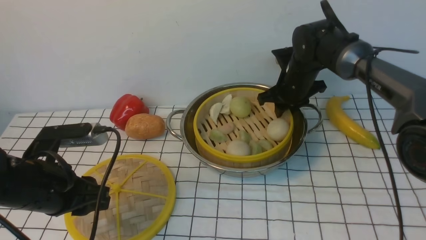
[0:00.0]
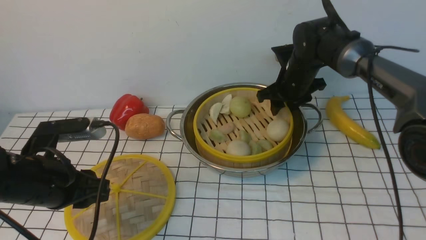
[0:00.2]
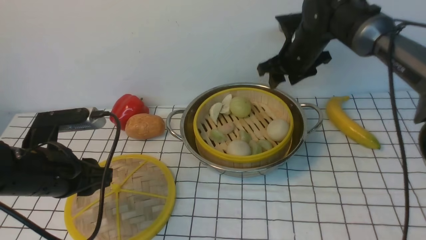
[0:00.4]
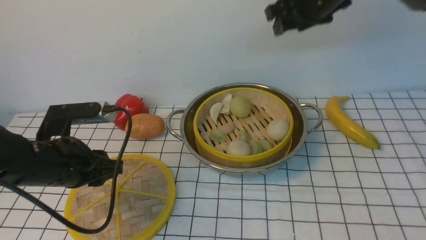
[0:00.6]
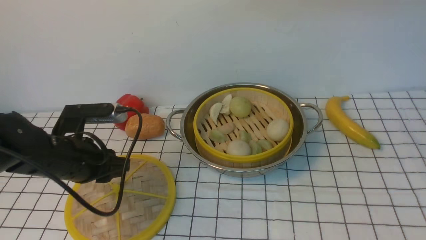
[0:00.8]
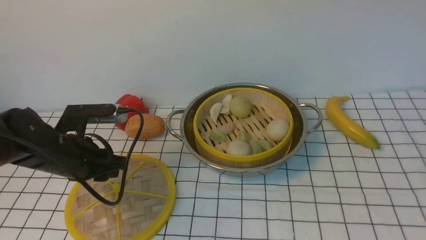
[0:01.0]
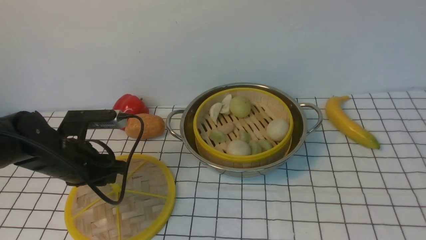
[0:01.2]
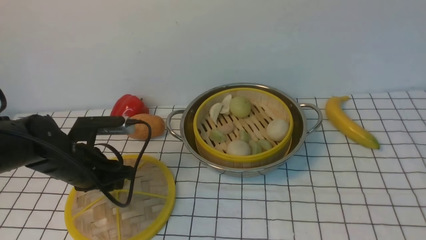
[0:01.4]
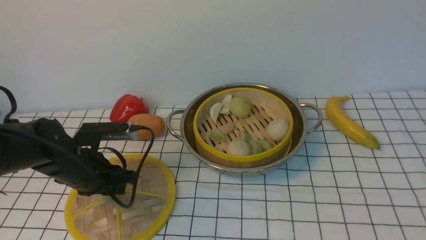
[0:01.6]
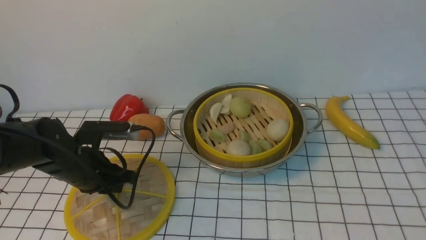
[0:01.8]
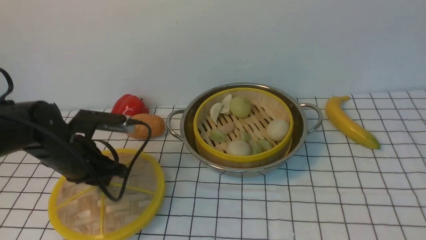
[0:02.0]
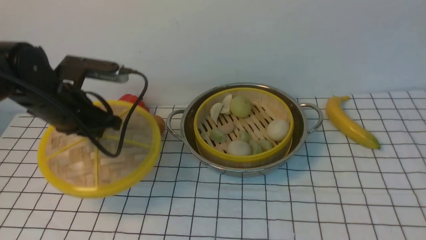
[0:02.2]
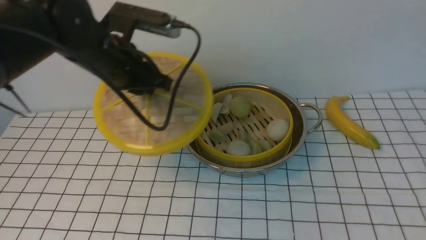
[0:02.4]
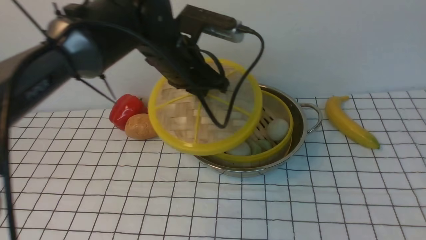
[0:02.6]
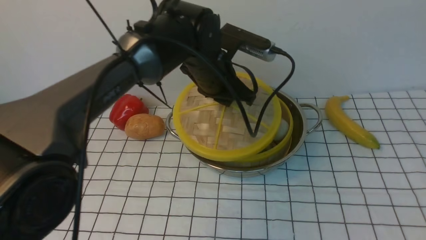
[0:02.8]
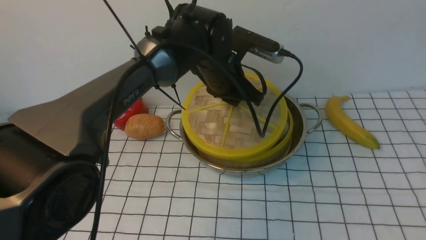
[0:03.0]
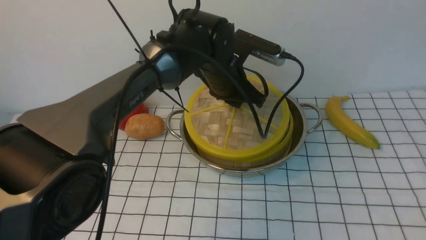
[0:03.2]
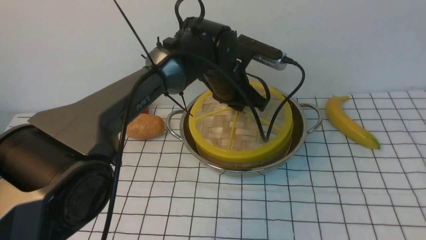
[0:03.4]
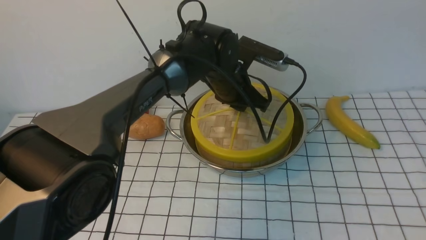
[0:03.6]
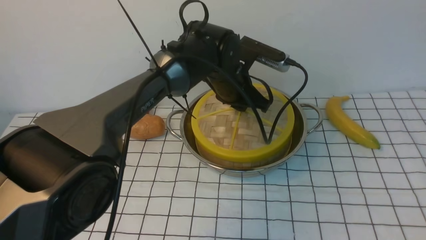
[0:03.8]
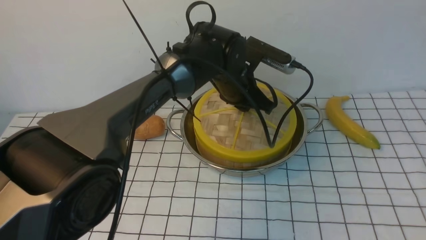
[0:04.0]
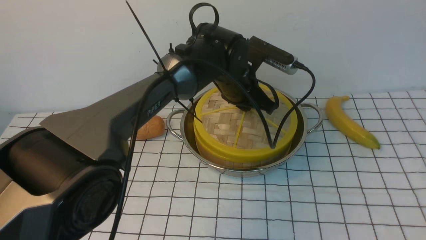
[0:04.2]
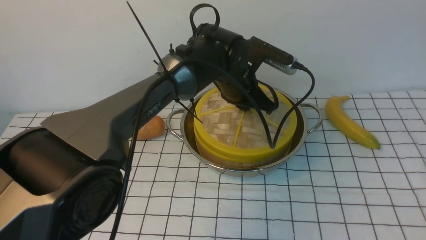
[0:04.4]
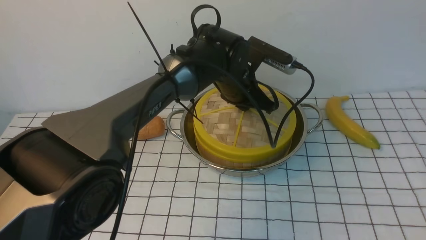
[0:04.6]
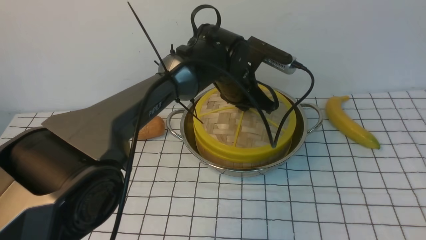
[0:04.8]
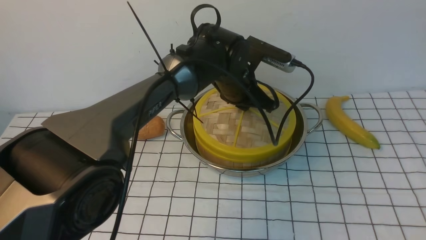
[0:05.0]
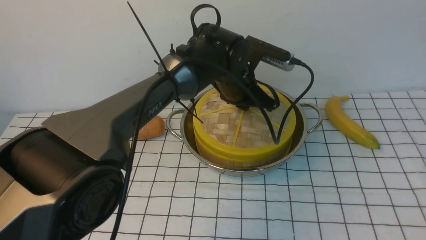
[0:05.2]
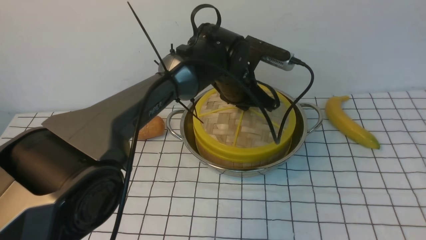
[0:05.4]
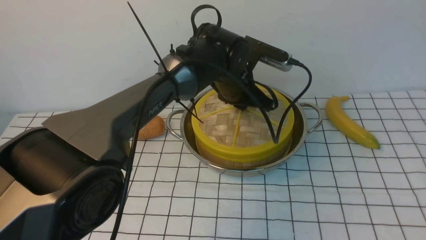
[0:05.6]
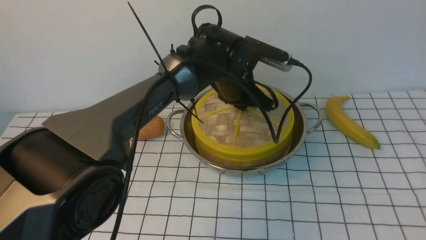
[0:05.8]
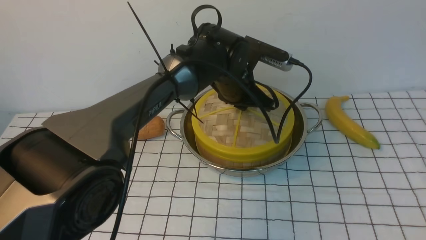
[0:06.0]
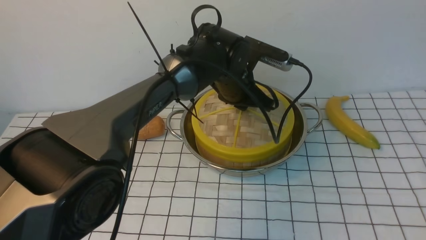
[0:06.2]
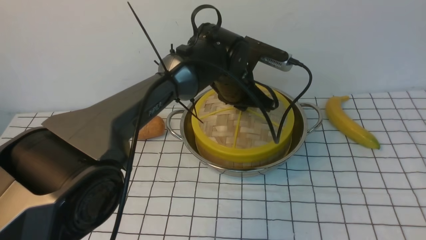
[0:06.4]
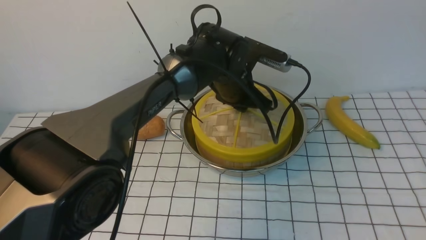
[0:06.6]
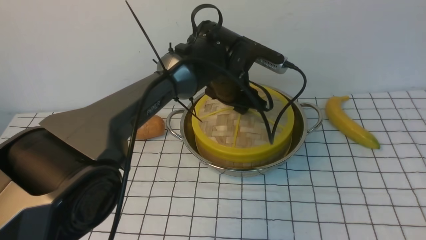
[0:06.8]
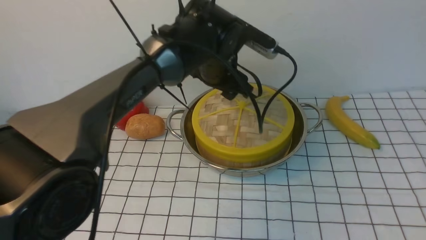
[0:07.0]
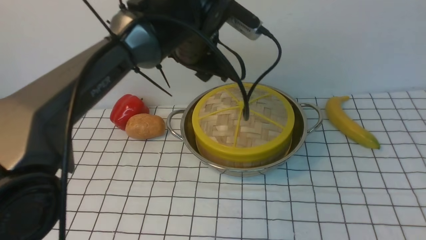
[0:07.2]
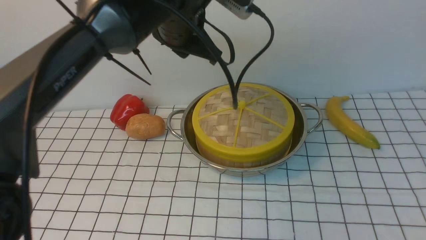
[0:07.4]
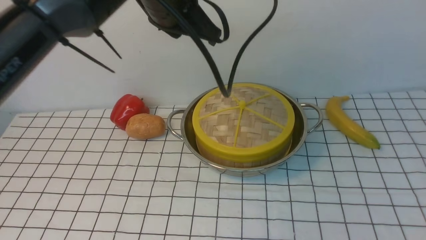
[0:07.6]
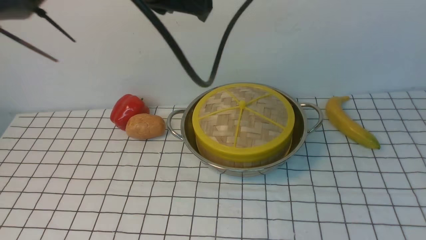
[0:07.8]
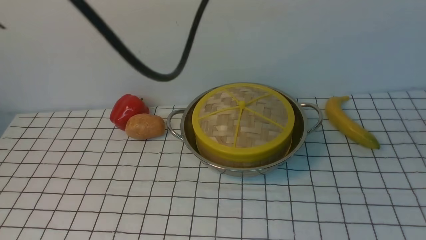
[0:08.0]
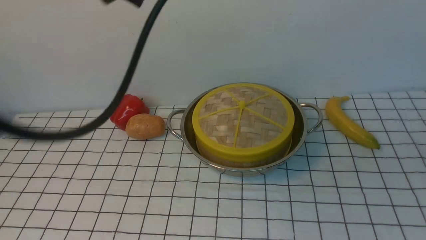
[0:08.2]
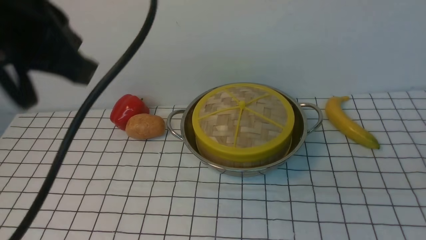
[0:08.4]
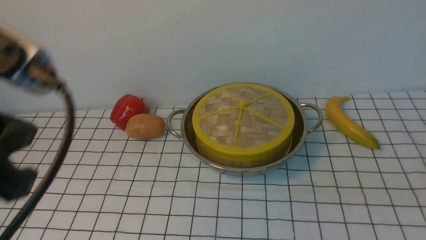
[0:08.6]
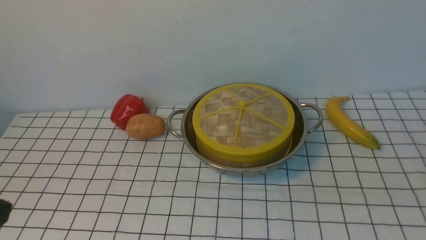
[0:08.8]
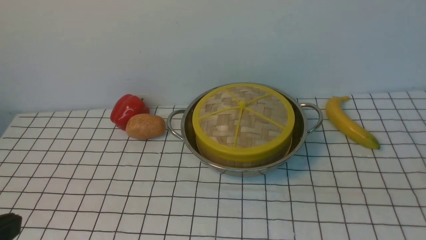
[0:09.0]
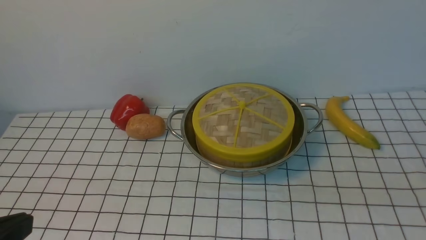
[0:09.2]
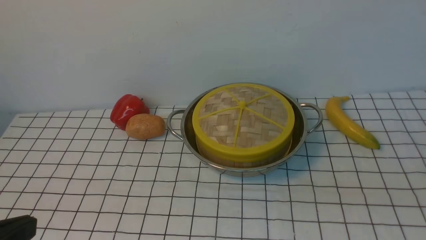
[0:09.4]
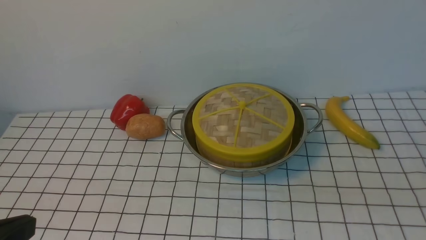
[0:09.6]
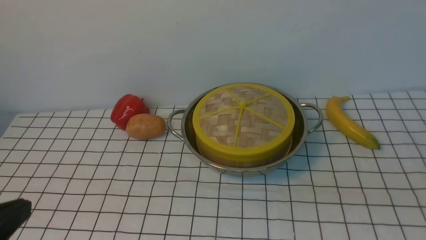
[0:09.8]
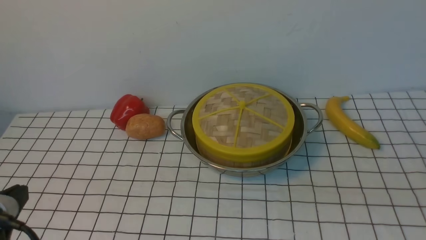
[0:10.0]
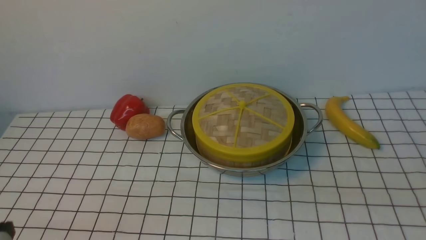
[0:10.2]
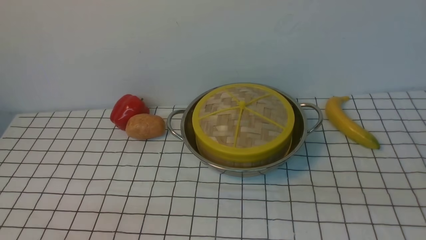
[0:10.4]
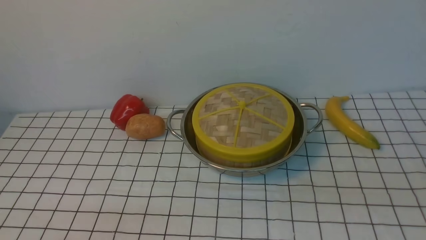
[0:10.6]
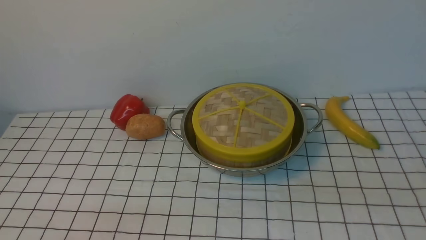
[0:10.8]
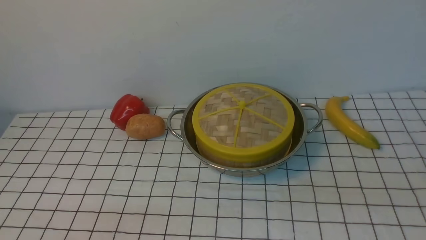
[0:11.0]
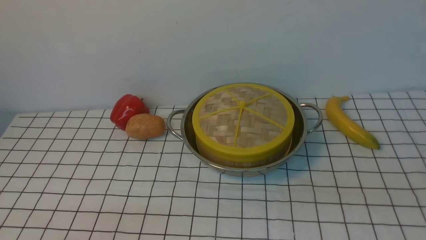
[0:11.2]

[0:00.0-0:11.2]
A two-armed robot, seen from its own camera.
Task of the whole recording: place the steamer in the pot on the white tablecloth, and put the lid on the steamer.
Step, 0:00.4 to 0:01.8: use the left arm to lift the lid of the steamer.
Step, 0:02.2 to 0:07.0: use the left arm to place the steamer lid on the steamer.
0:00.0 to 0:01.6: The left gripper travels forward and downward by approximately 10 cm. Meanwhile the right gripper goes approximately 60 cm upward and backward, and opens up.
0:01.6 to 0:03.2: The left gripper goes roughly 25 cm to the right and forward.
0:04.8 to 0:06.4: Both grippers stay put.
0:06.4 to 0:08.0: The left gripper is displaced upward, backward and to the left by some 30 cm, and closes its fingers, while the right gripper heads downward, covering roughly 20 cm, and closes its fingers.
0:08.0 to 0:09.6: The right gripper is displaced downward by about 10 cm. The left gripper goes roughly 30 cm backward, downward and to the left.
0:09.6 to 0:11.2: The left gripper goes approximately 15 cm downward.

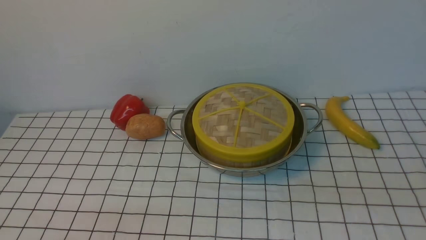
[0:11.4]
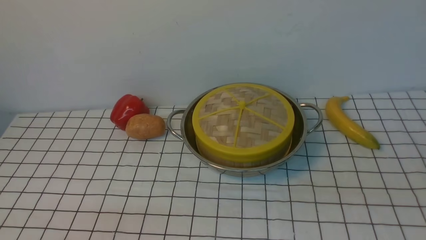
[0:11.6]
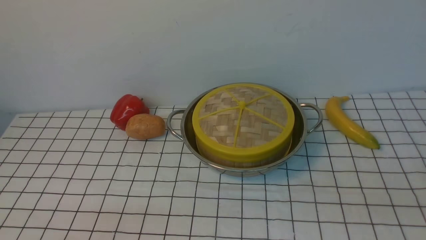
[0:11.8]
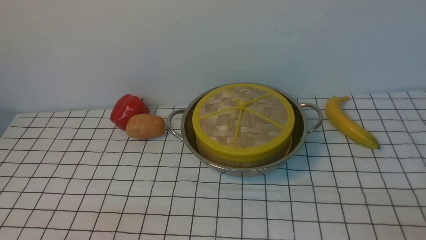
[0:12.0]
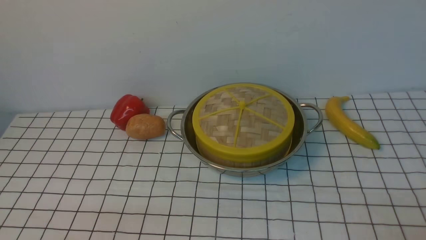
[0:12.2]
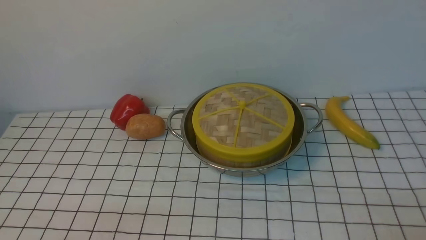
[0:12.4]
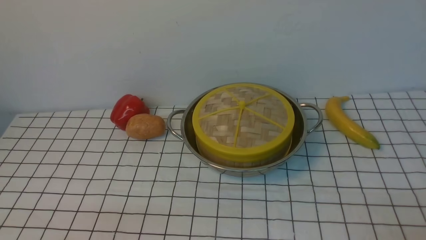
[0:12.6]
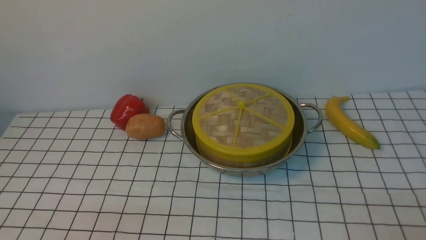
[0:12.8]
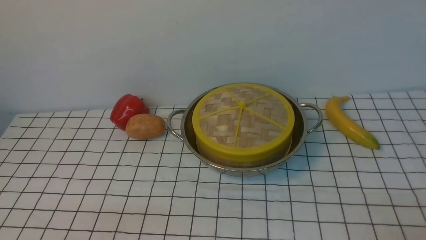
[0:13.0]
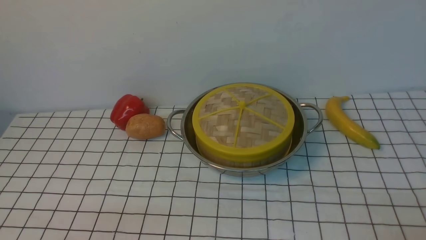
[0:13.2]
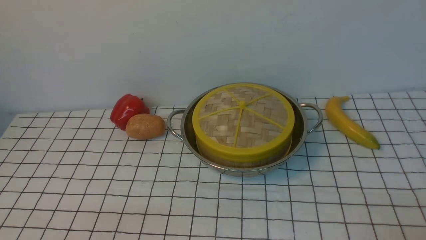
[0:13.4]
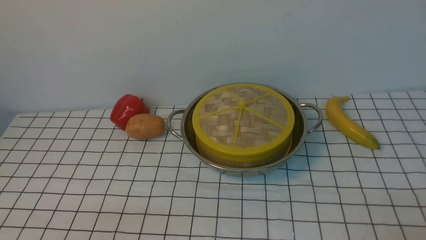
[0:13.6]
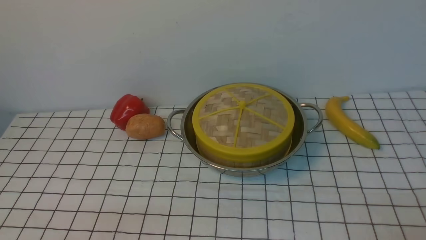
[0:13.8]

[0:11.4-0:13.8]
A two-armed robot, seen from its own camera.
Task of the whole recording: place the steamer in the pot on the white tablecloth, and put the lid on the steamer.
0:12.6 to 0:13.8: Both grippers stay put.
